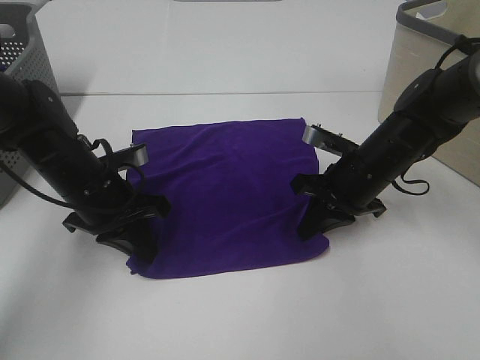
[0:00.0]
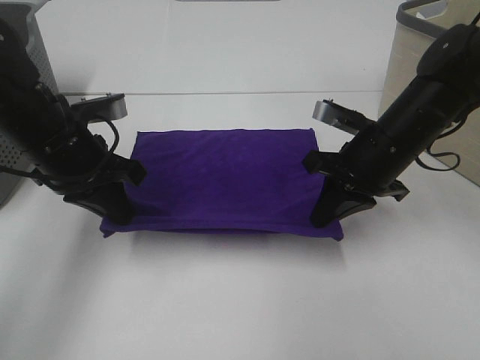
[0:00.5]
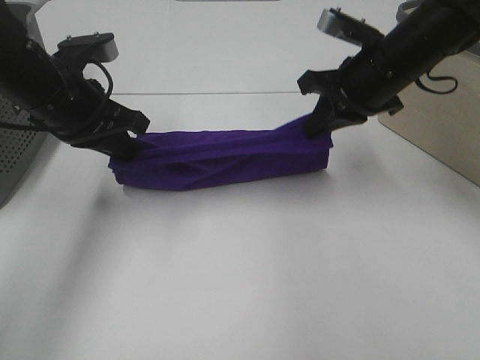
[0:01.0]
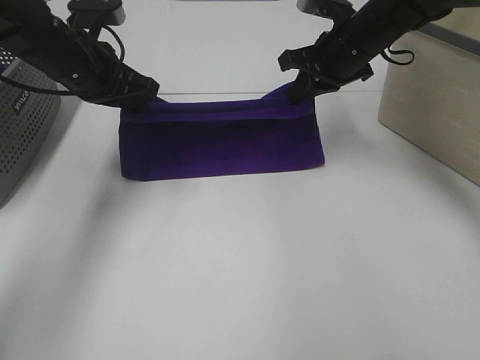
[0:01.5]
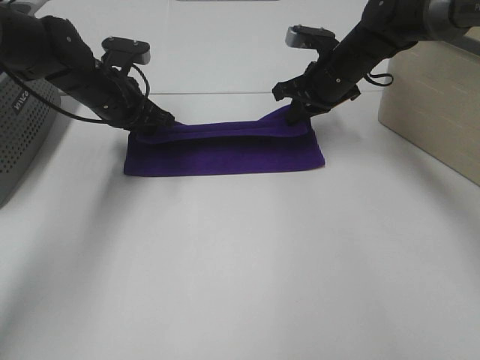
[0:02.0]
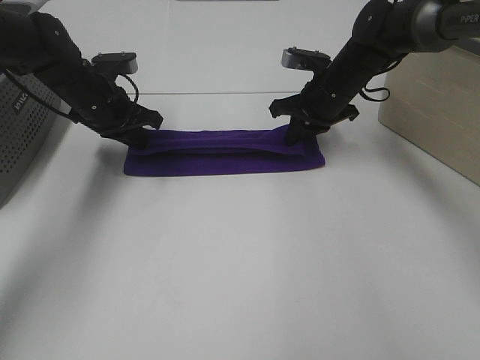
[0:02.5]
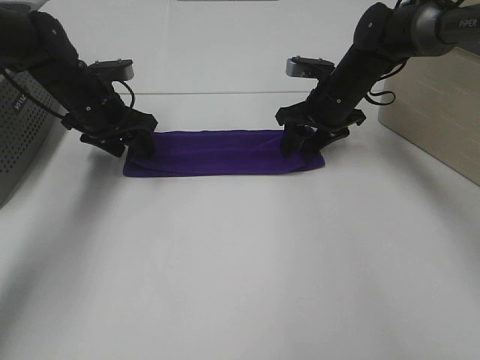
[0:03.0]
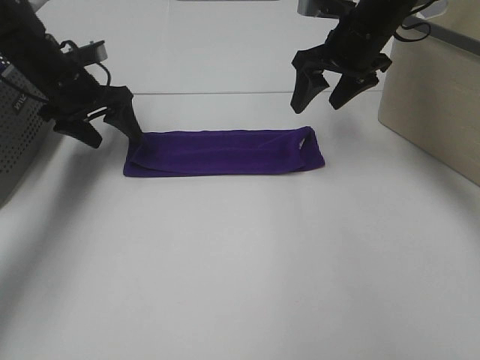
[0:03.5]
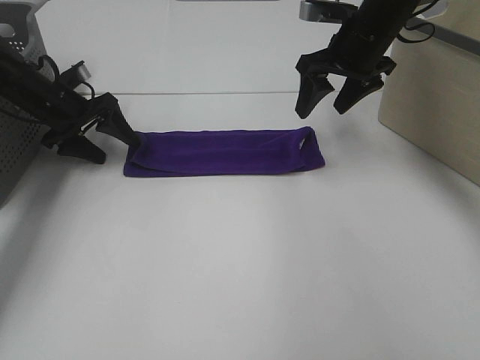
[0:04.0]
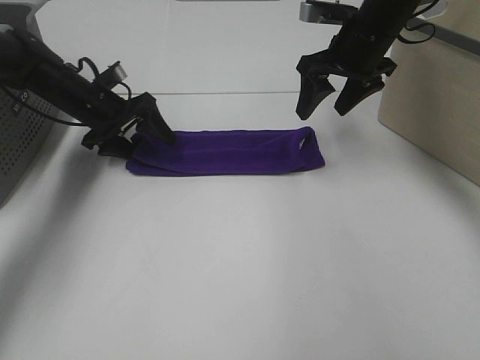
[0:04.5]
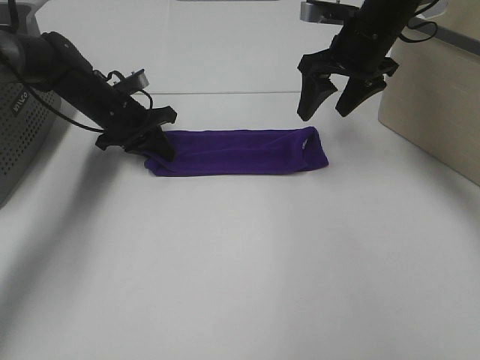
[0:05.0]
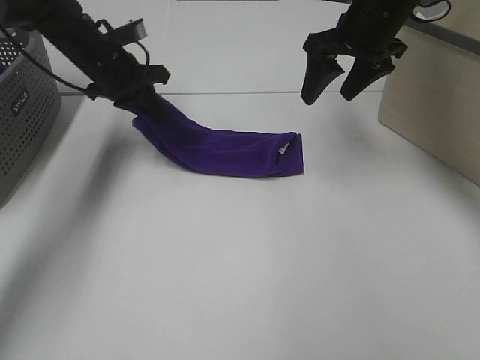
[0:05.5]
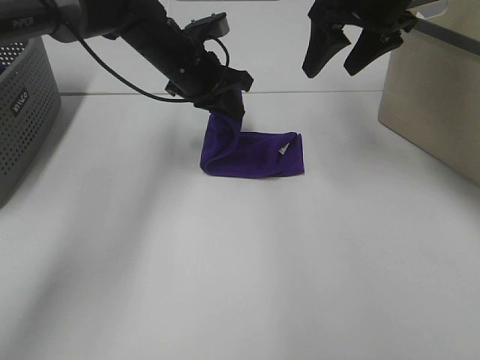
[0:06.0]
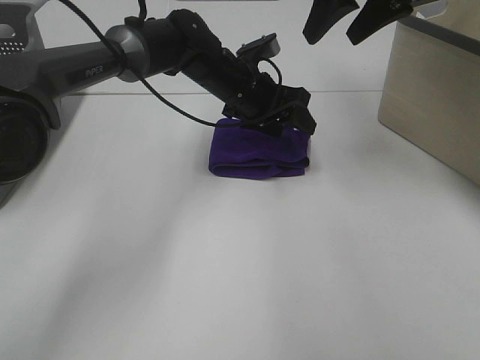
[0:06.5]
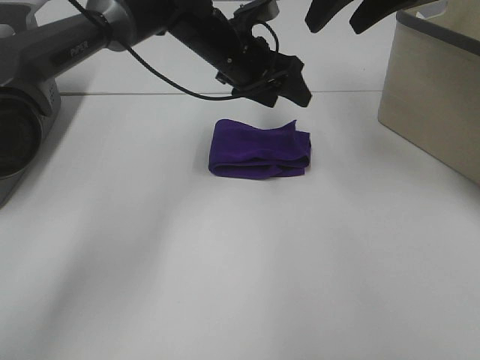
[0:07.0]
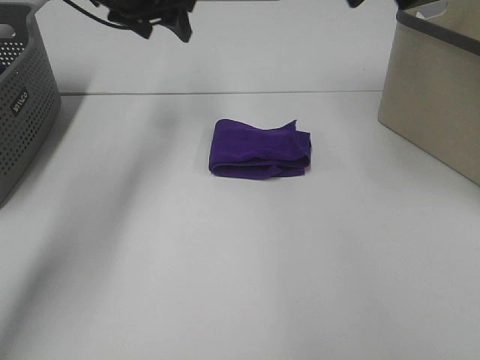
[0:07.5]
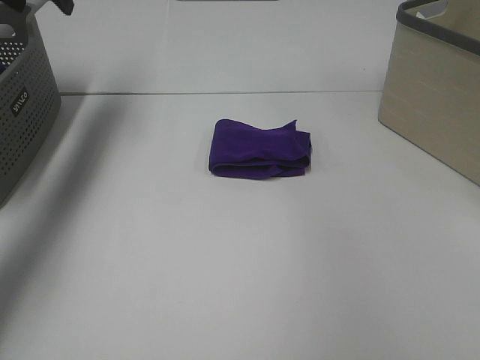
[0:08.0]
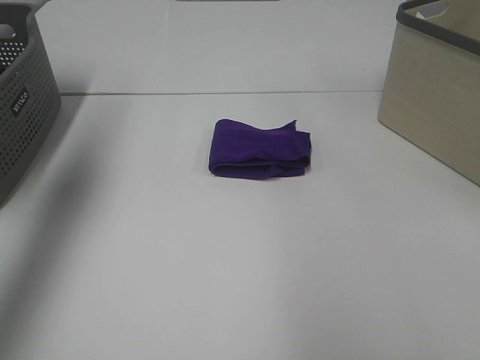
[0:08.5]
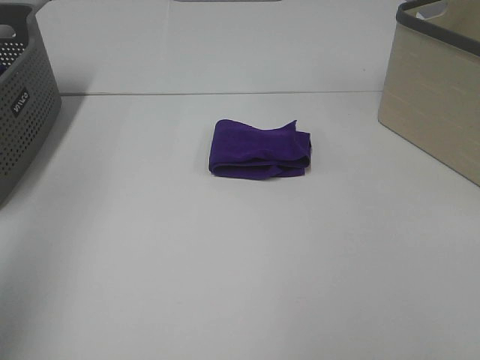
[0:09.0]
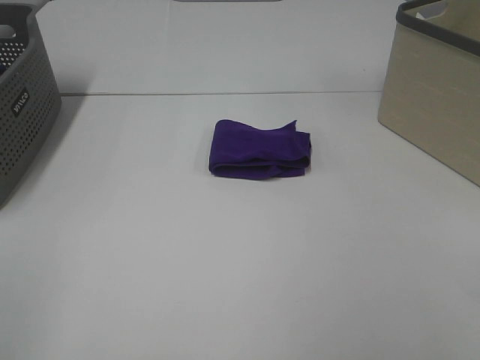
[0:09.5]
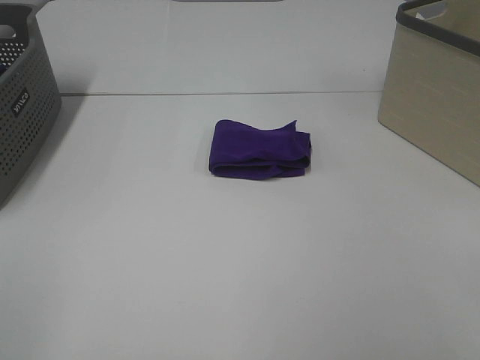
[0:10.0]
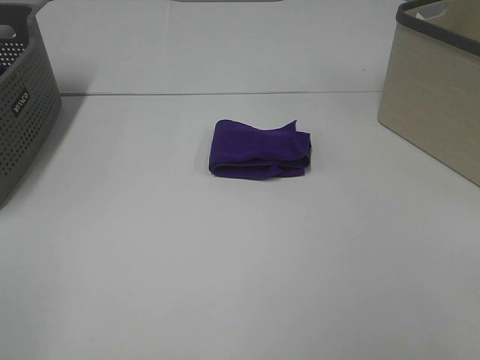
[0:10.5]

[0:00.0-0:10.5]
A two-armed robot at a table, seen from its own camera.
Task of the whole recording: Fold towels.
Step, 0:00.0 to 0:02.5: Left hand: fold the purple towel up.
Step, 0:00.0 to 0:02.5: Right hand: fold the purple towel up.
Step, 0:03.0 to 0:06.0: Left hand: fold the purple towel from left to right.
0:00.0 to 0:02.0: The right gripper goes approximately 15 cm forward and upward. The left gripper travels forward by roughly 15 cm.
0:02.0 to 0:04.0: The right gripper shifts some 5 cm upward, and opens up, while the left gripper travels to the left by some 10 cm, and opens up.
0:04.0 to 0:06.5: The right gripper is displaced upward by about 10 cm. The left gripper shifts roughly 30 cm to the right, and closes, then opens again.
0:06.5 to 0:08.5: The left gripper is displaced to the left, upward and backward by some 40 cm, while the right gripper travels backward and to the right by some 30 cm.
0:08.5 to 0:10.5: The left gripper moves backward, roughly 35 cm.

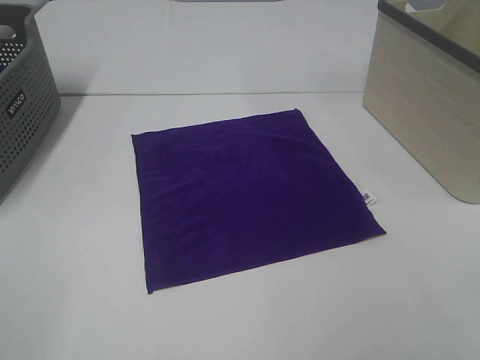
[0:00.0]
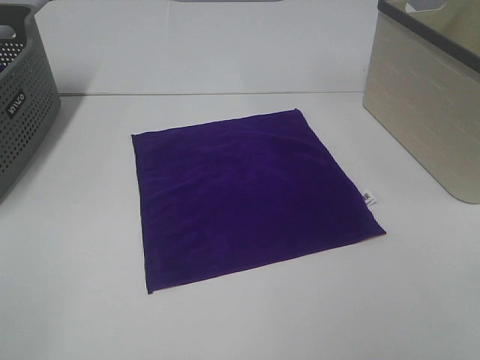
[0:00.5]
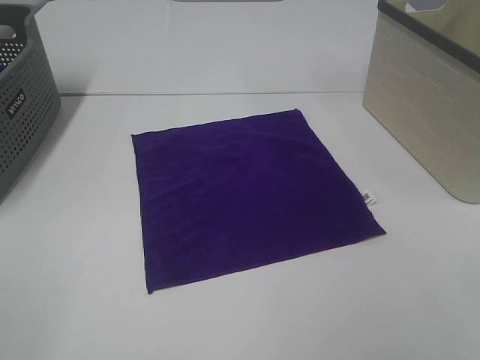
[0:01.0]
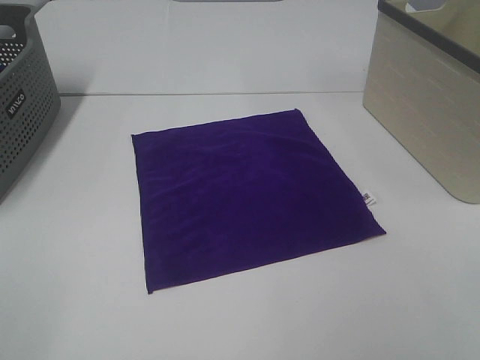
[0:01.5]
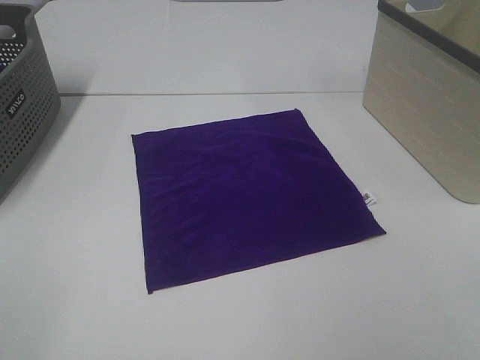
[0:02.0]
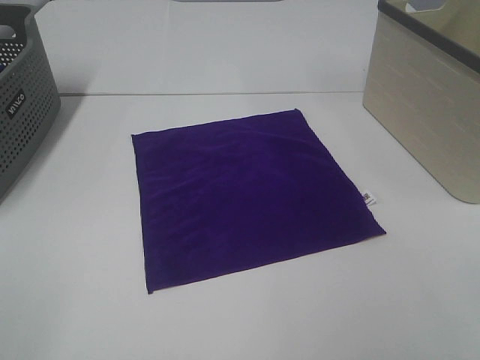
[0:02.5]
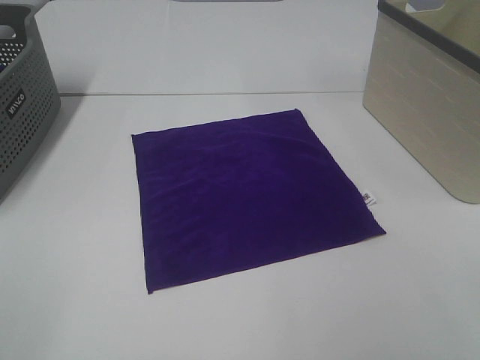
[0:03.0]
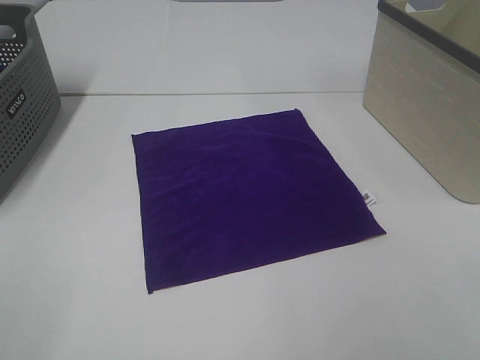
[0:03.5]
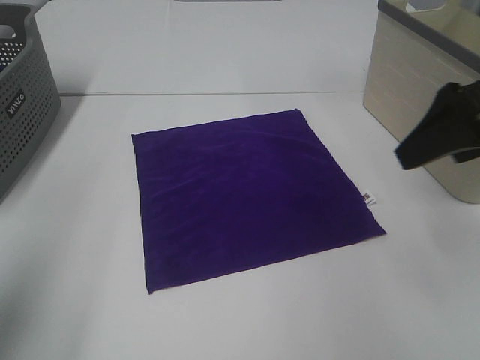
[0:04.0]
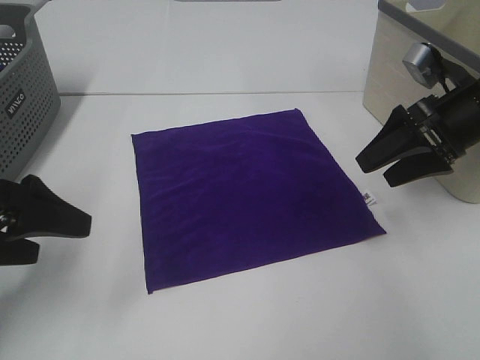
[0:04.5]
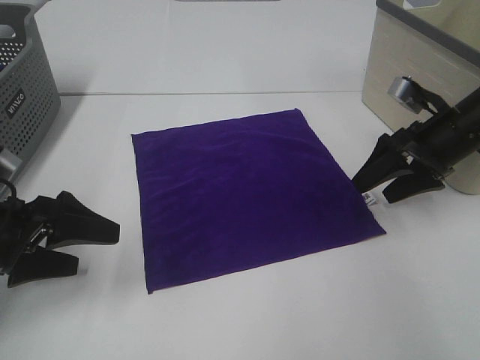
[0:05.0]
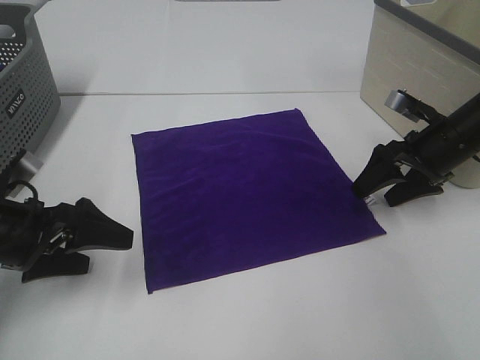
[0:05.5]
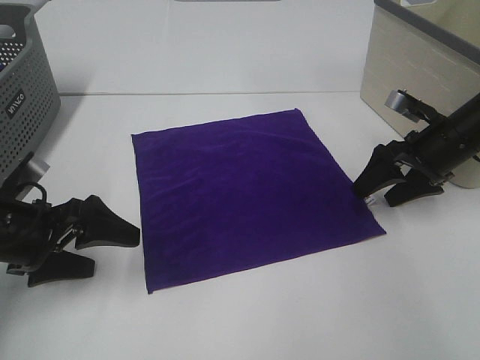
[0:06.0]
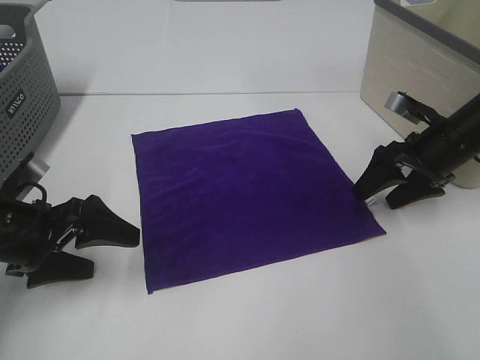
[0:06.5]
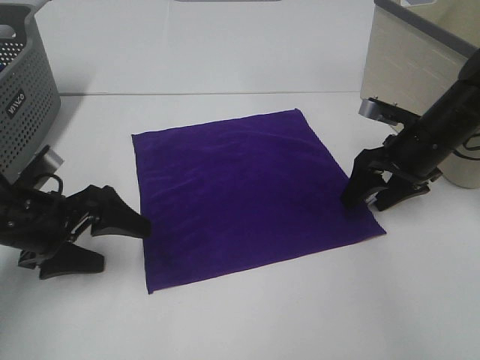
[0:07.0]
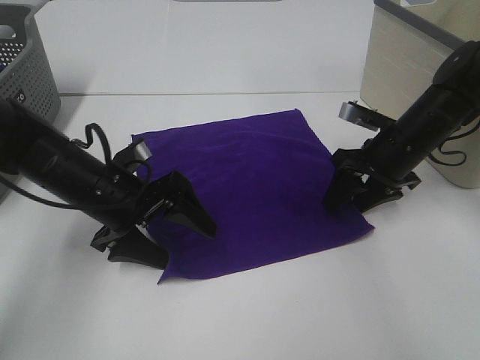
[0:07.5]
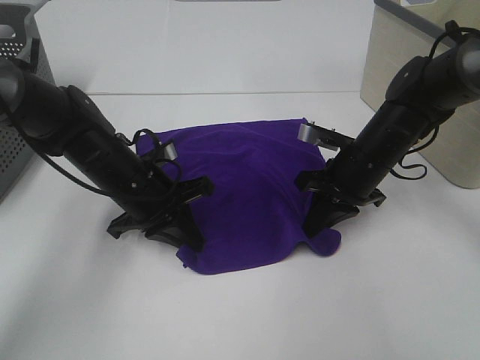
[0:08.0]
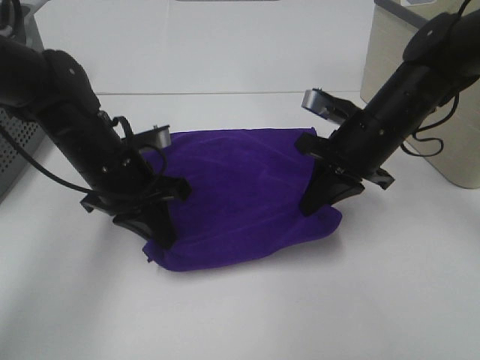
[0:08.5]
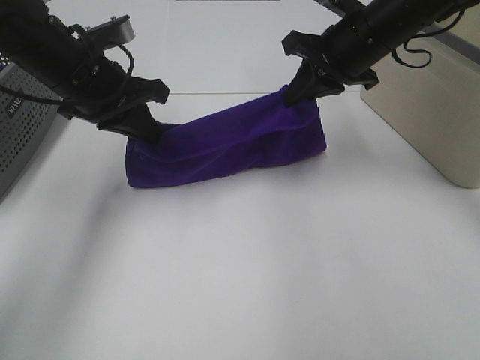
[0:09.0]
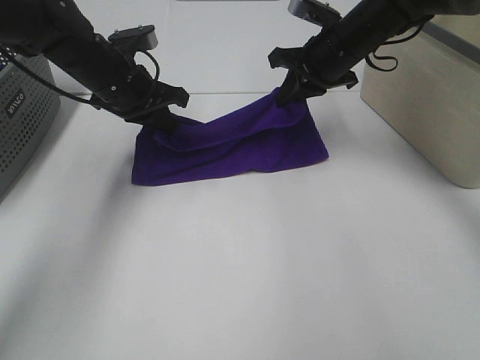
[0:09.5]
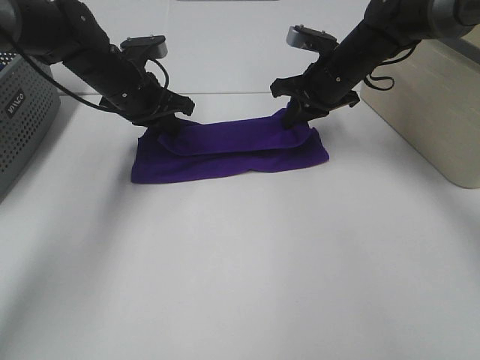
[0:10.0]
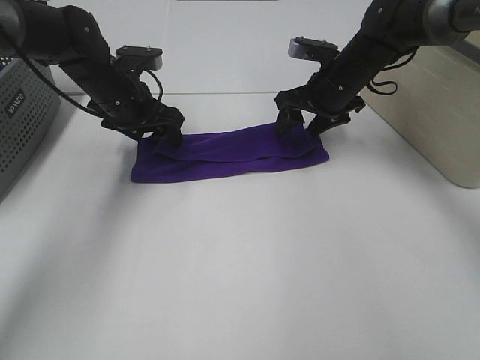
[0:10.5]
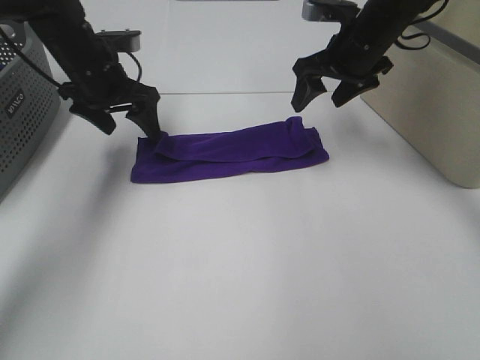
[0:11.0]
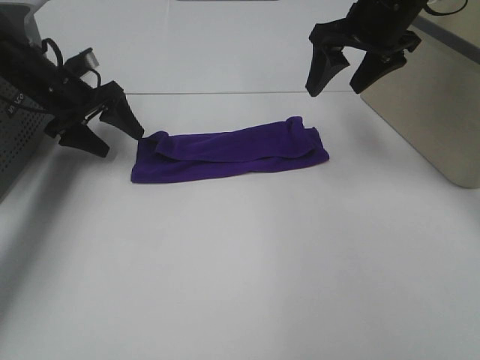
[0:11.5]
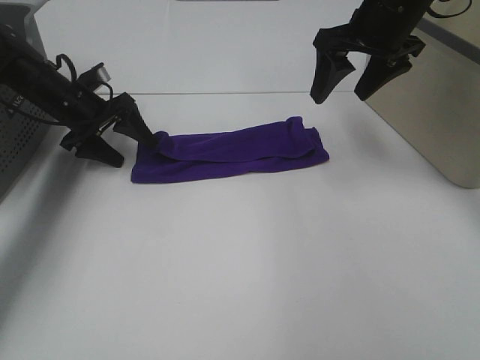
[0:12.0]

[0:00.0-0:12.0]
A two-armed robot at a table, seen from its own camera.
Task of the whole recording: Fold towels.
Step, 0:00.0 to 0:07.5: Left hand: grab the bottom left corner of purple towel.
Step, 0:00.0 to 0:07.5: Right hand: grab the bottom right corner of purple towel.
Step, 0:08.0 to 0:10.0: Left hand: fold the purple towel up.
Step, 0:08.0 to 0:10.0: Right hand: fold the purple towel up.
0:00.0 to 0:02.0: Both grippers stay about where they are.
0:02.0 to 0:04.0: The left gripper moves forward, some 15 cm. The right gripper shifts approximately 25 cm forward.
0:04.0 to 0:06.0: The grippers both shift downward and forward by roughly 20 cm.
0:06.0 to 0:08.0: The left gripper heads to the right and forward, covering some 15 cm, and closes up; the right gripper shifts roughly 10 cm to the left, and closes up.
0:08.0 to 0:10.0: Both grippers move forward and upward, approximately 15 cm.
0:10.0 to 0:12.0: The left gripper shifts about 10 cm to the left, and opens; the right gripper heads upward and backward, covering some 15 cm, and opens up.

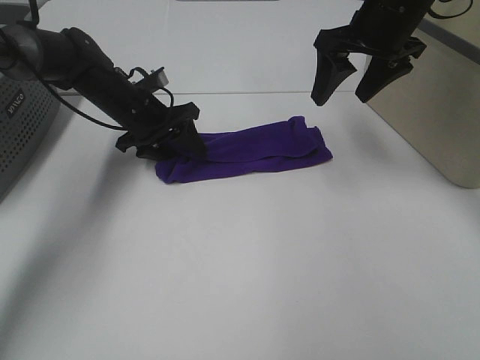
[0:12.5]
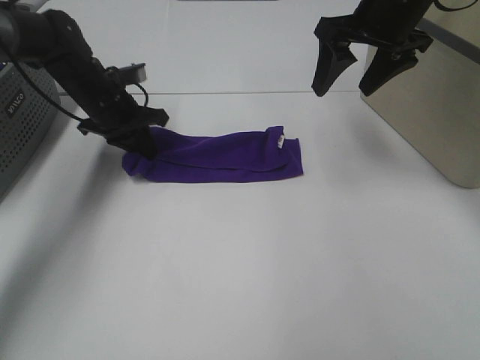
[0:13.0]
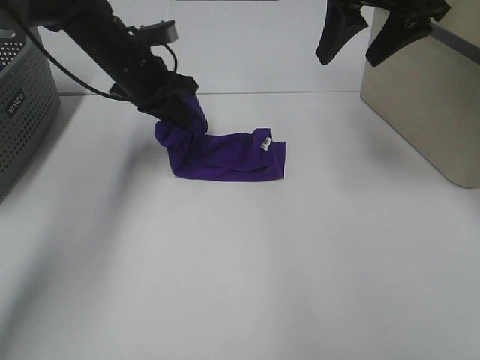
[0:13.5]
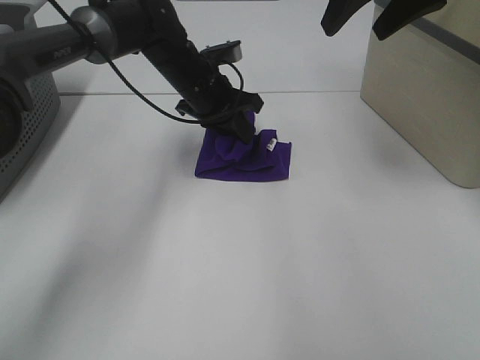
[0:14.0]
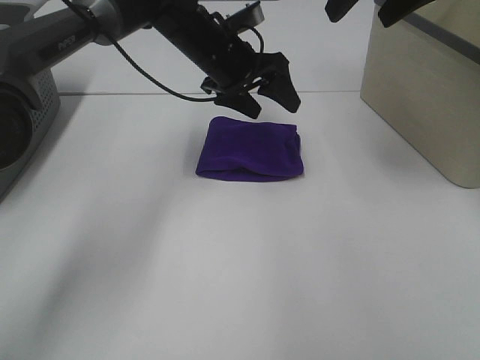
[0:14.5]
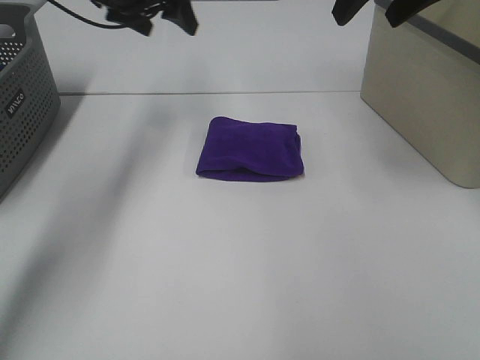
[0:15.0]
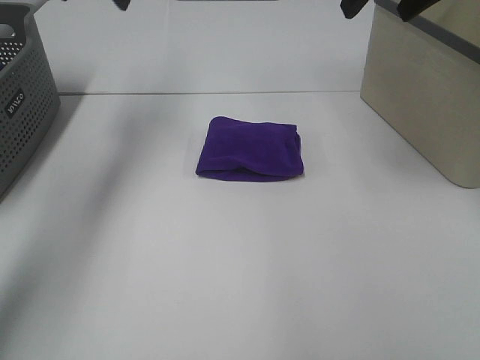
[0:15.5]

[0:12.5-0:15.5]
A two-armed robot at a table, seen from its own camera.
Task of the whole recording: Fold towels.
0:12.5 to 0:14.0: The right gripper goes some 10 cm upward, while the left gripper travels to the right and upward by roughly 10 cm.
0:14.0 to 0:15.5: The left gripper travels upward and to the left by about 25 cm, and opens.
